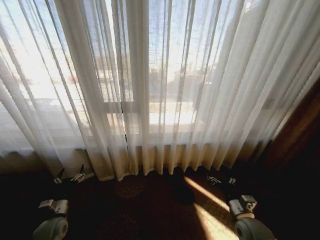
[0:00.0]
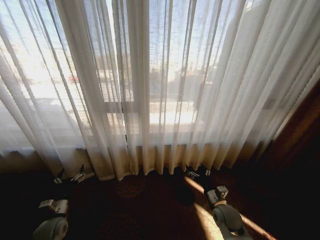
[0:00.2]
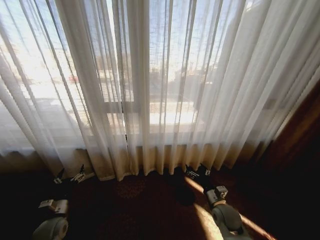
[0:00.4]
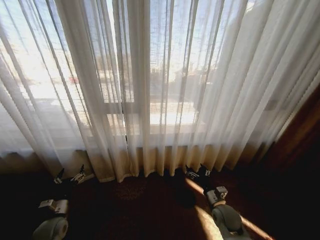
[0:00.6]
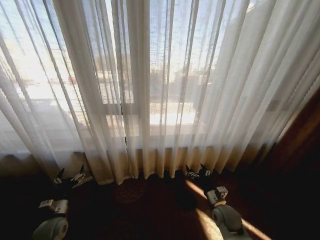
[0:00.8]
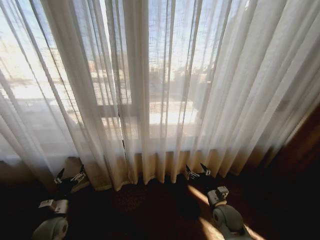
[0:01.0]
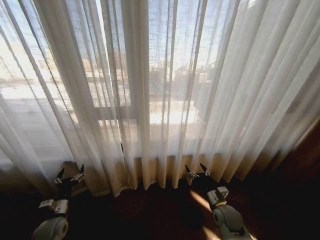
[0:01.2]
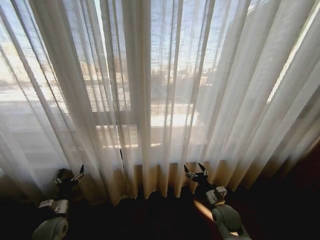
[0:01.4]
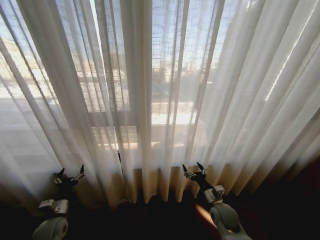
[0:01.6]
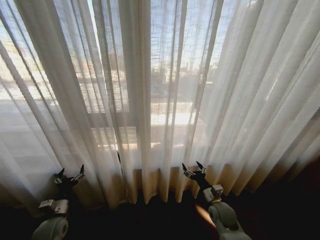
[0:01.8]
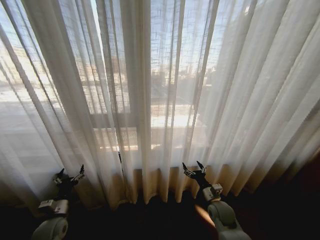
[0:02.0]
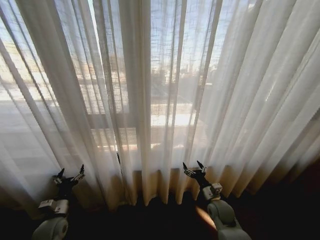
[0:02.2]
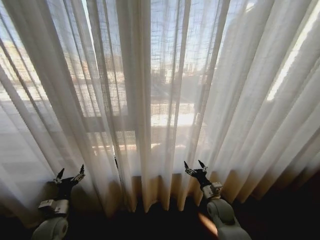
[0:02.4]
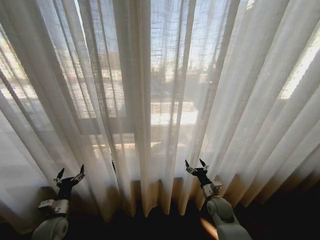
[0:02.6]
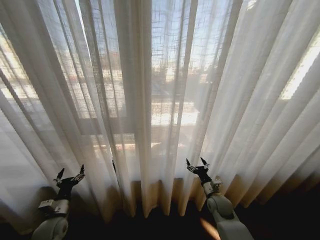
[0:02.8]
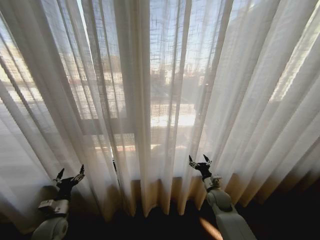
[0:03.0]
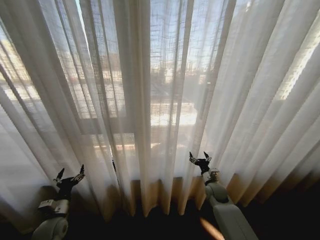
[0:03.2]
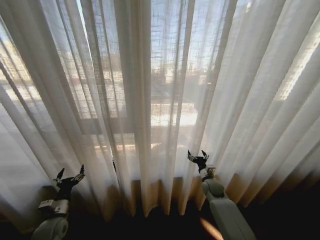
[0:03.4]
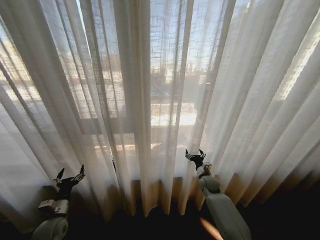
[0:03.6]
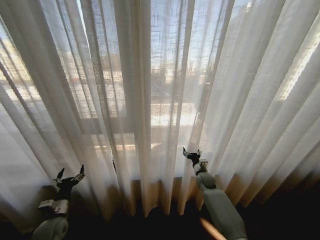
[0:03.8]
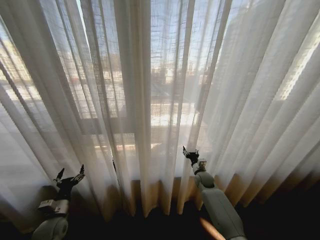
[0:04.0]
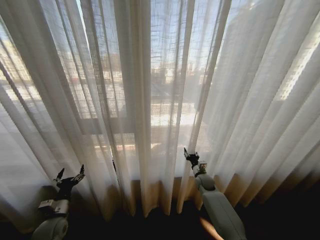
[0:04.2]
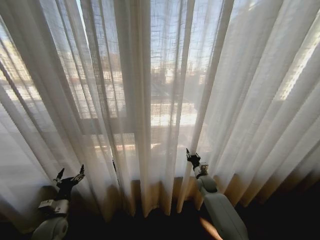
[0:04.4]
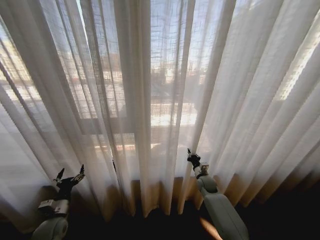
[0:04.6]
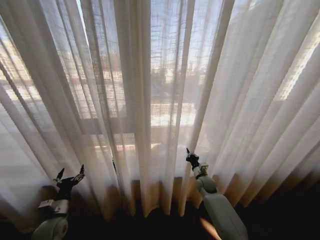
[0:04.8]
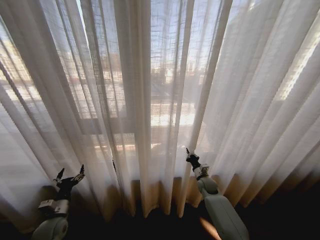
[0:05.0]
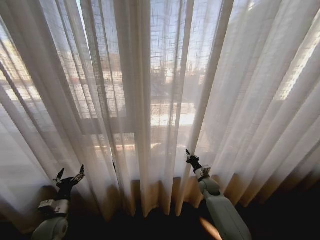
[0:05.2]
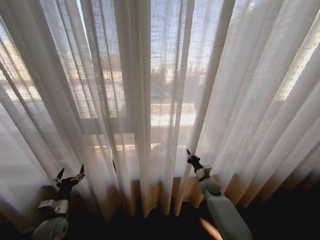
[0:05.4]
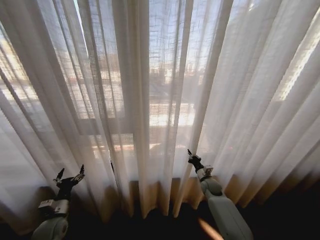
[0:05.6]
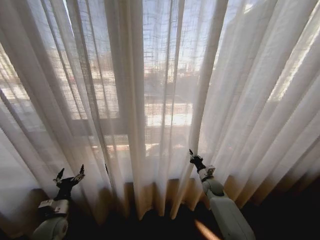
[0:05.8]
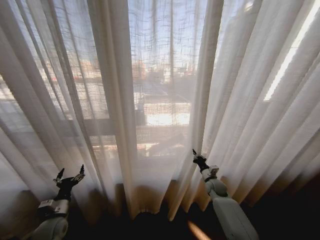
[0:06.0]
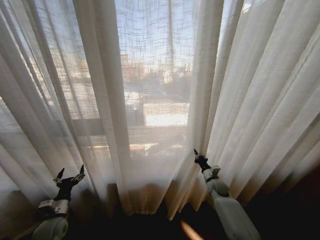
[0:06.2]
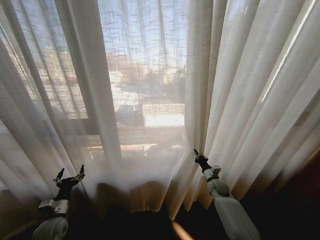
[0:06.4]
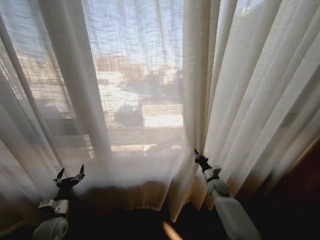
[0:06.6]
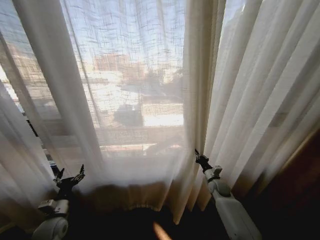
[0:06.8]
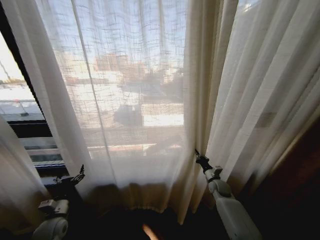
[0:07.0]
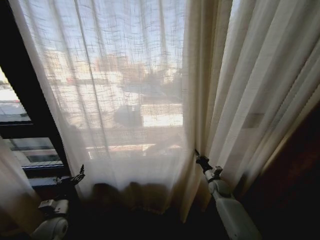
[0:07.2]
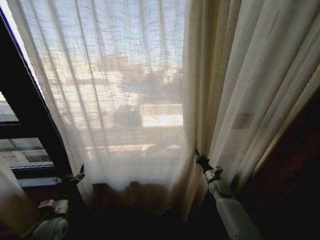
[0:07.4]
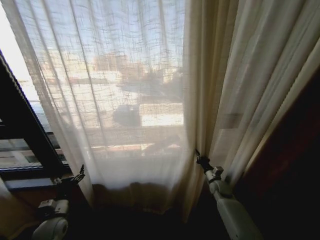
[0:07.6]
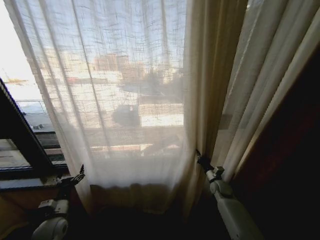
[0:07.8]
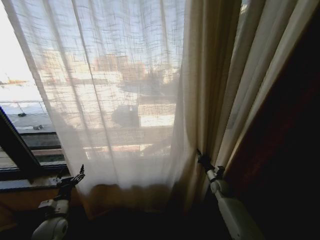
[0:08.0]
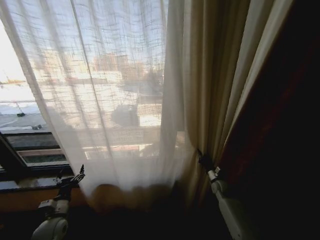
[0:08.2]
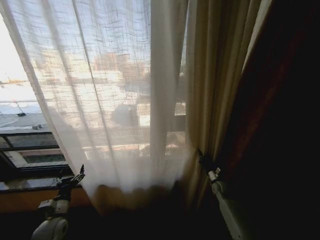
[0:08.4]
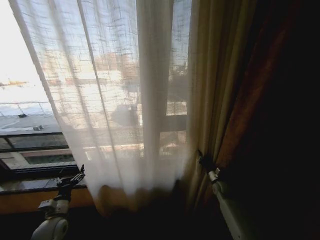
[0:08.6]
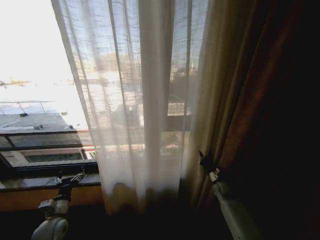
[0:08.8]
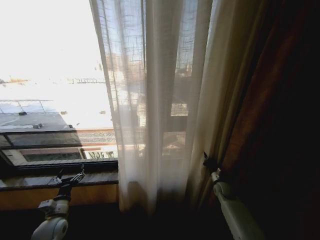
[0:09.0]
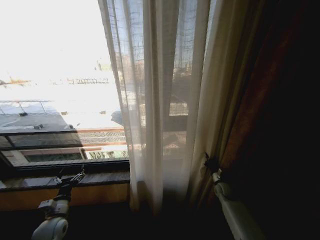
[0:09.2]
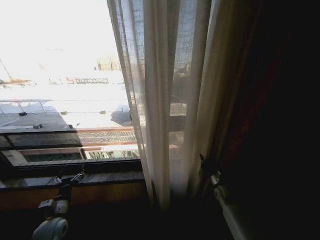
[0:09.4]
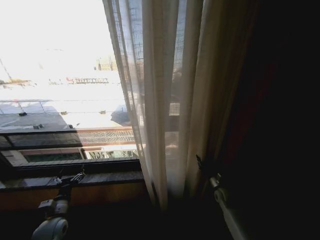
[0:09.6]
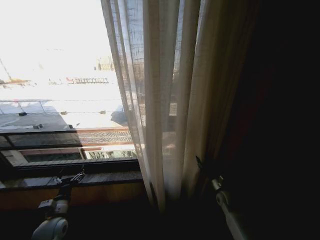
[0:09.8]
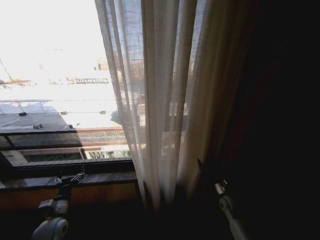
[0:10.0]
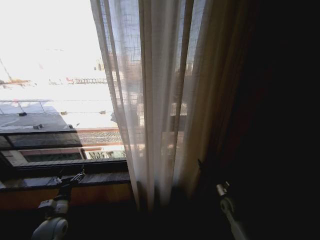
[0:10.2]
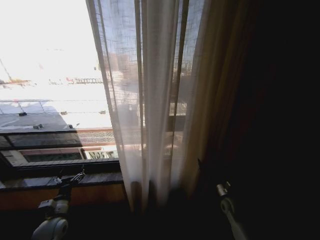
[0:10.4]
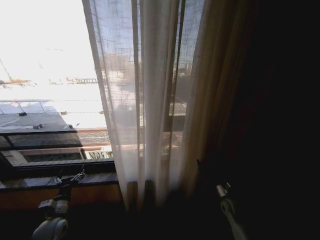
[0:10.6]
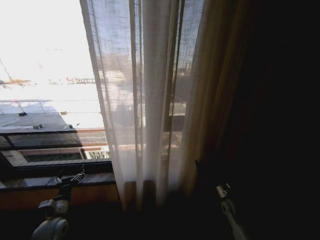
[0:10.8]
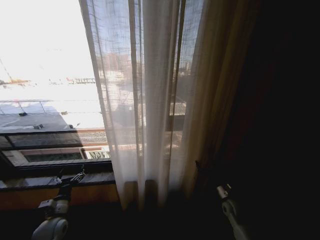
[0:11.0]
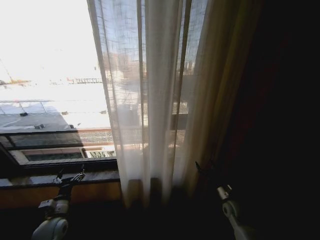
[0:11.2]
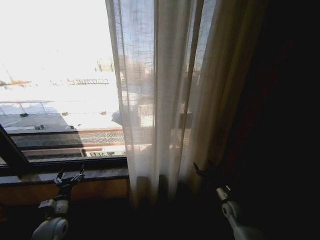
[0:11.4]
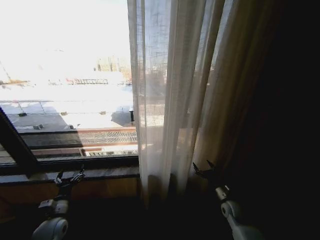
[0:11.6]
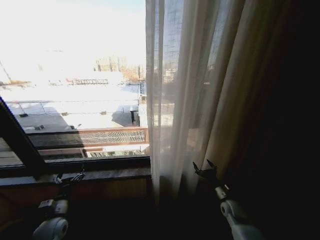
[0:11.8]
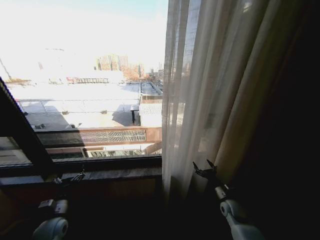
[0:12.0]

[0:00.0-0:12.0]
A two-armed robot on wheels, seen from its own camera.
Task of the whole recording: Open the curtains by pulling them apart, changing their state from closed to fully open.
0:01.6 to 0:03.0: The right gripper is displaced forward by approximately 5 cm.
0:03.0 to 0:04.4: The right gripper heads forward, covering about 10 cm, and closes.
0:04.4 to 0:06.0: The right gripper closes its fingers.
0:09.0 to 0:10.4: The right gripper goes some 10 cm backward, and opens its fingers.

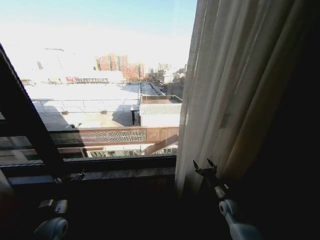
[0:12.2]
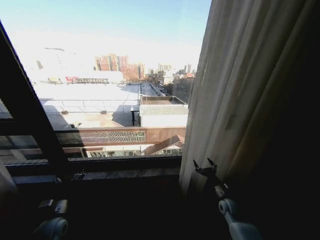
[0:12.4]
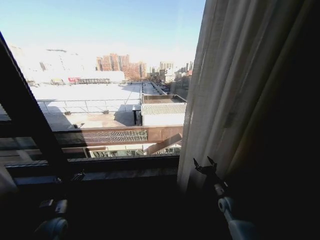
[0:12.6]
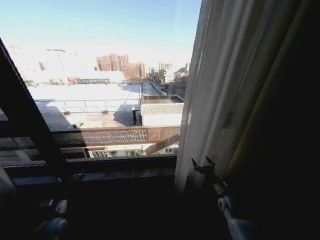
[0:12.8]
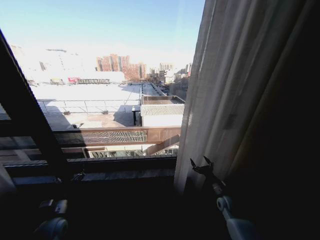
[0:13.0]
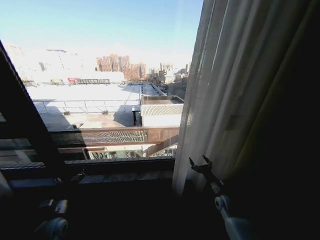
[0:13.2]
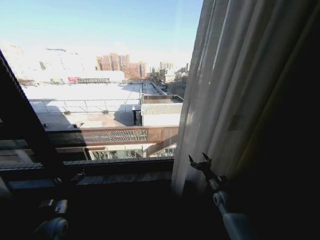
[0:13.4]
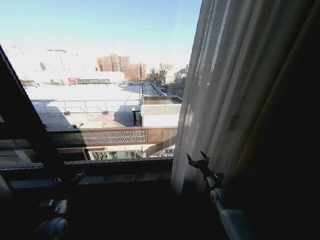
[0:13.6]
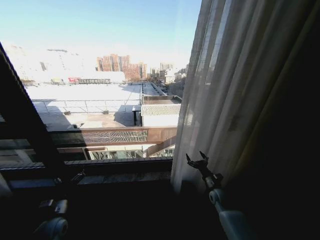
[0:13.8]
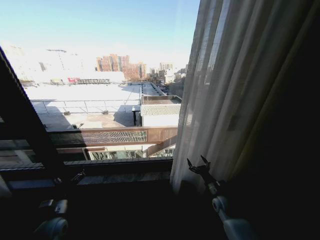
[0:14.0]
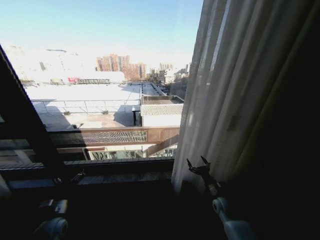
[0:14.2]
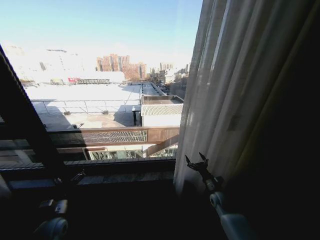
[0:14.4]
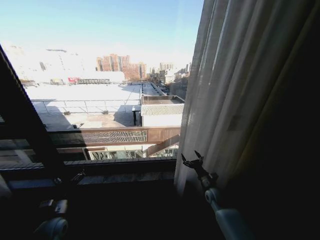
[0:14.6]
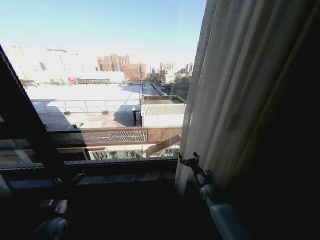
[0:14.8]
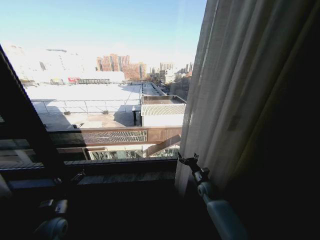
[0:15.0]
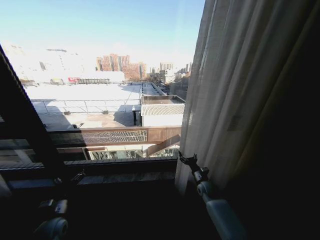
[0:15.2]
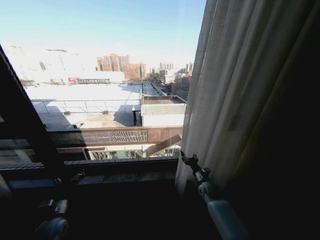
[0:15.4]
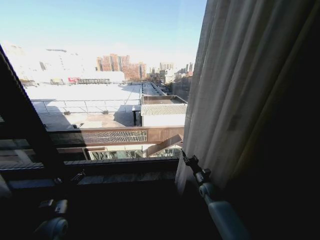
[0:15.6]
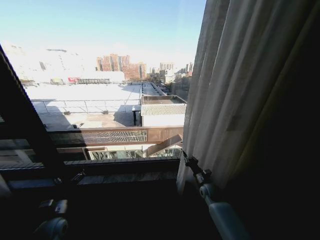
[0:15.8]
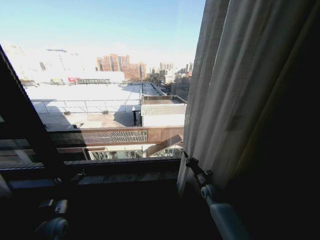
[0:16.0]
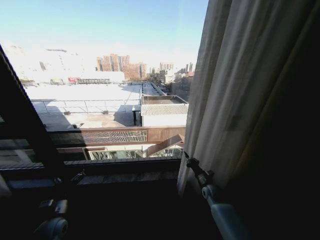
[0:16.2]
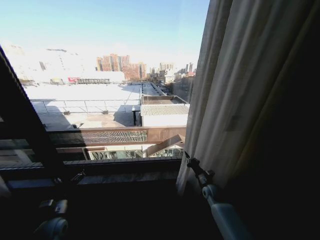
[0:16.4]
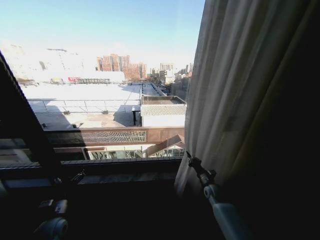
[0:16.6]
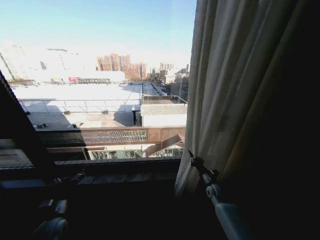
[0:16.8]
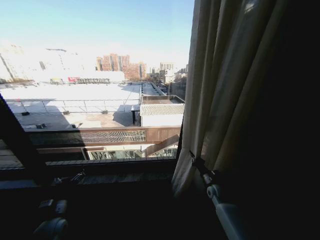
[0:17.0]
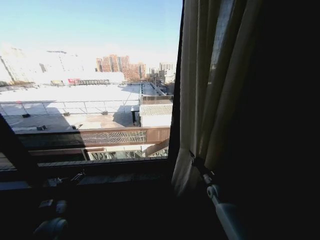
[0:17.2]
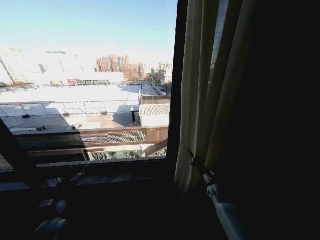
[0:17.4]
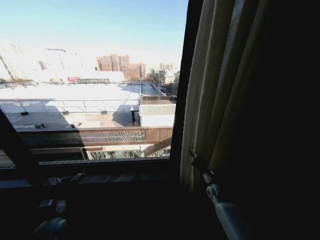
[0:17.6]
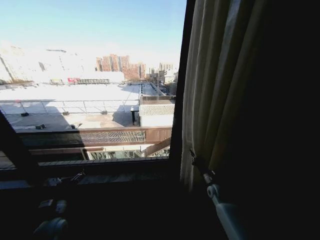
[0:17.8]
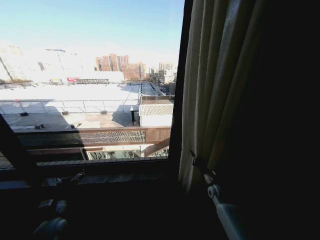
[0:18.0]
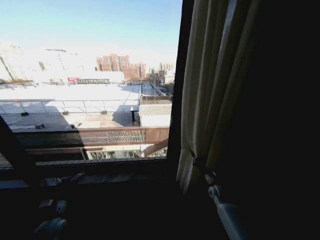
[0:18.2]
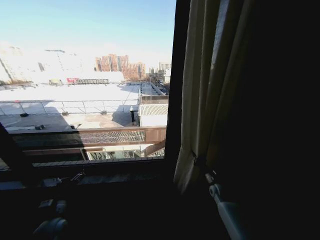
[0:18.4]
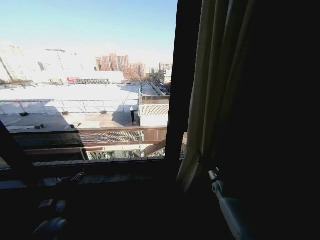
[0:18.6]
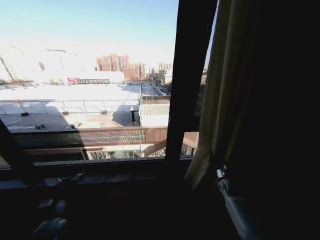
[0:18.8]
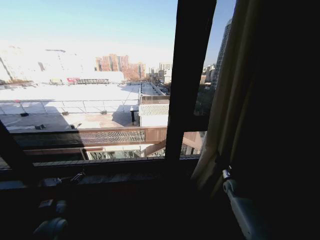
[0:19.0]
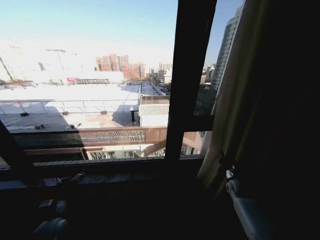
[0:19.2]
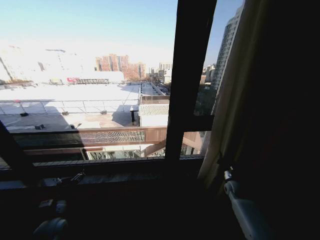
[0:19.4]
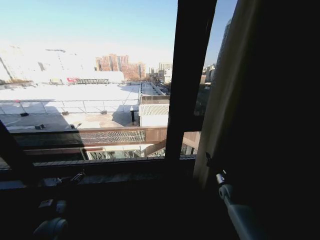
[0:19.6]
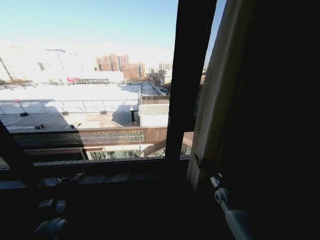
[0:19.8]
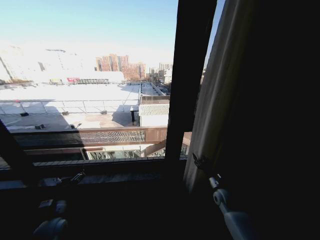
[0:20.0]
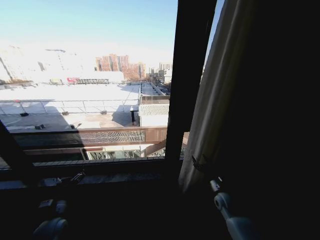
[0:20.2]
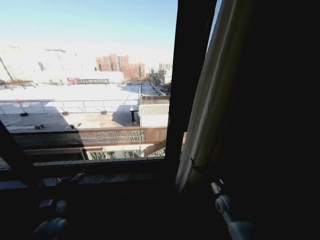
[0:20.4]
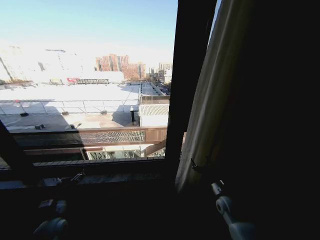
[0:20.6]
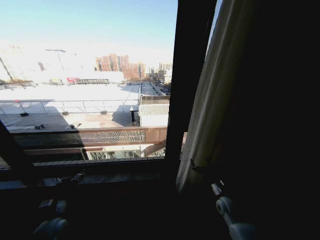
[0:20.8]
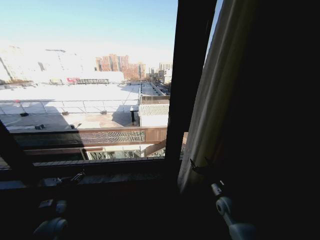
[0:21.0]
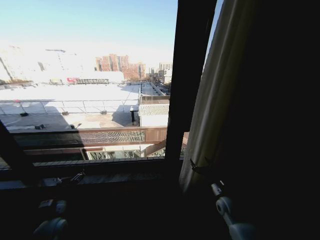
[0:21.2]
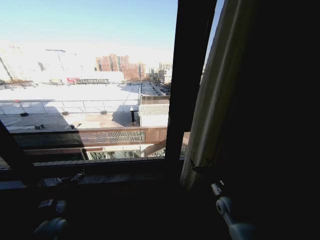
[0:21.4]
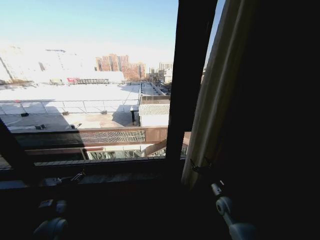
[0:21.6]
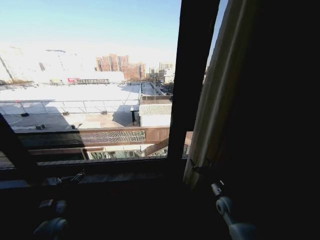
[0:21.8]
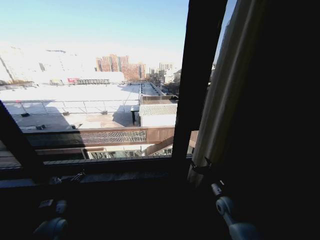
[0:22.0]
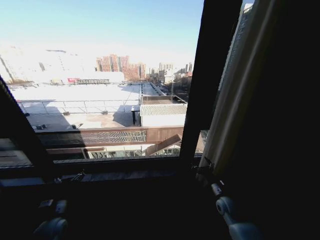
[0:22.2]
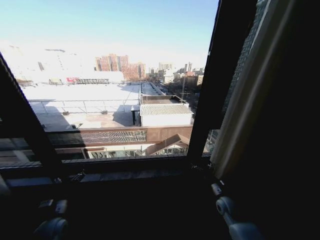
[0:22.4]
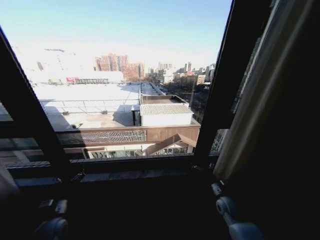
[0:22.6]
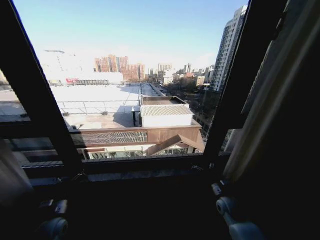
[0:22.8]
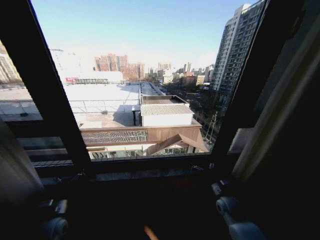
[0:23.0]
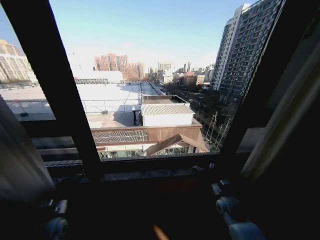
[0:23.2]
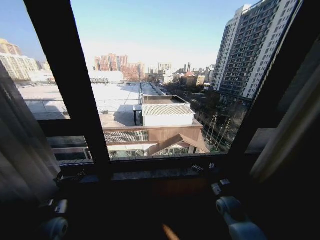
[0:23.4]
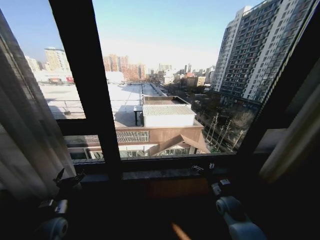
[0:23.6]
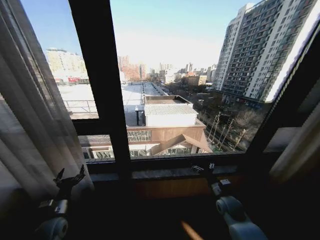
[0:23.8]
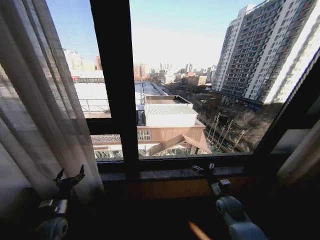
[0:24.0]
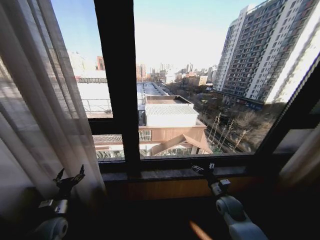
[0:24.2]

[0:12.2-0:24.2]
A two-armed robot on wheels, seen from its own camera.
Task of the whole recording: Open the curtains by pulling them apart, changing their state from closed to fully open.
0:12.2 to 0:13.8: The right gripper shifts by roughly 5 cm.
0:13.8 to 0:15.2: The right gripper shifts by roughly 5 cm.
0:15.2 to 0:16.6: The right gripper closes its fingers.
0:18.2 to 0:19.8: The right gripper reaches approximately 10 cm to the right, then returns.
0:19.8 to 0:21.2: The right gripper moves backward, approximately 5 cm, and opens its fingers.
